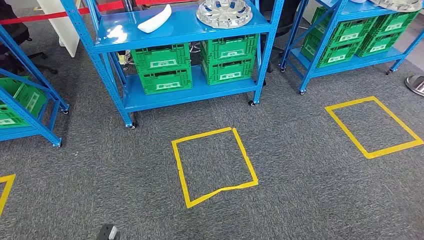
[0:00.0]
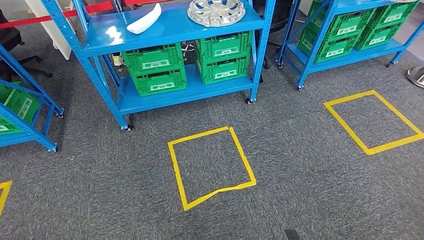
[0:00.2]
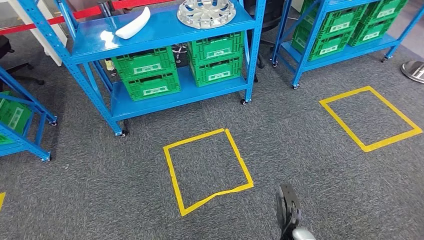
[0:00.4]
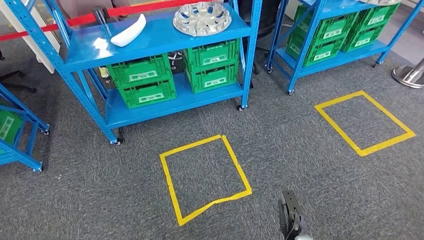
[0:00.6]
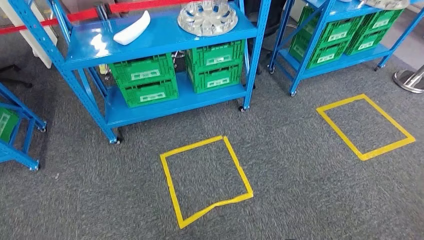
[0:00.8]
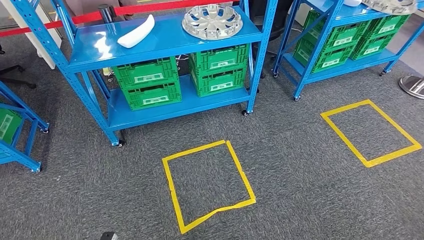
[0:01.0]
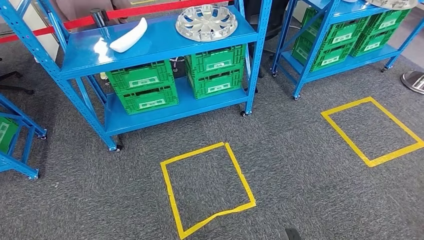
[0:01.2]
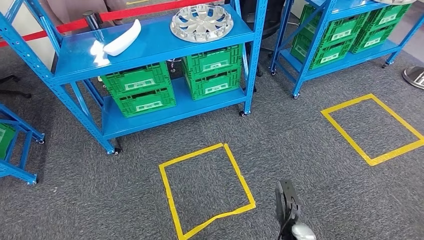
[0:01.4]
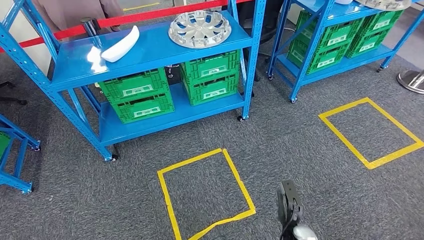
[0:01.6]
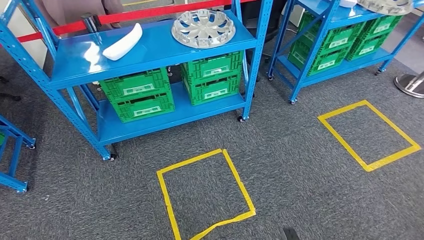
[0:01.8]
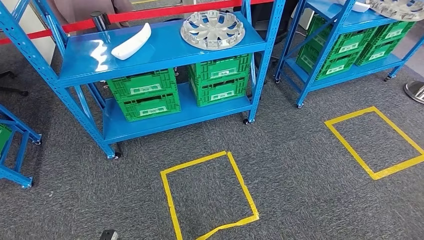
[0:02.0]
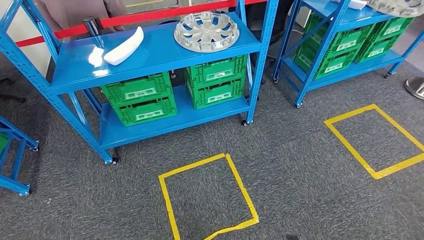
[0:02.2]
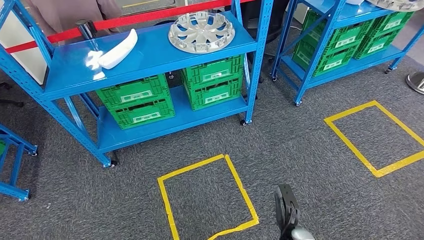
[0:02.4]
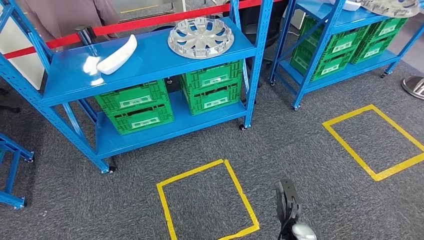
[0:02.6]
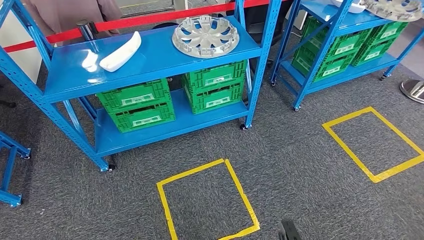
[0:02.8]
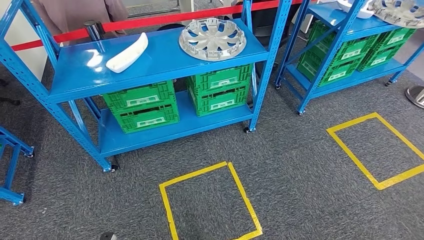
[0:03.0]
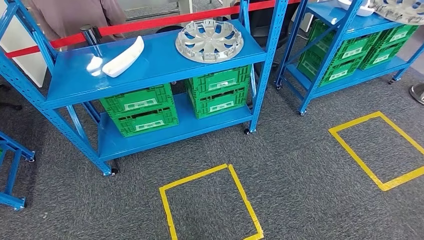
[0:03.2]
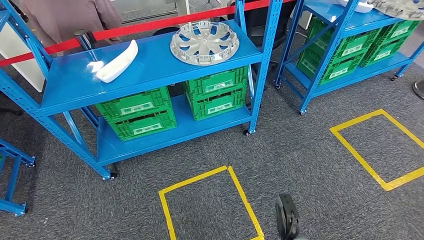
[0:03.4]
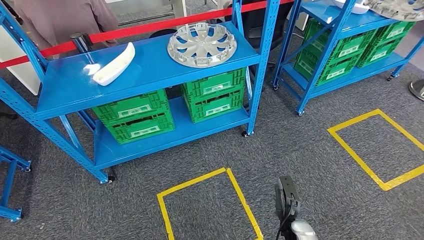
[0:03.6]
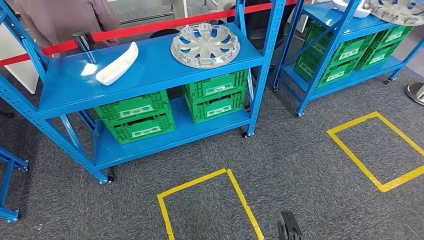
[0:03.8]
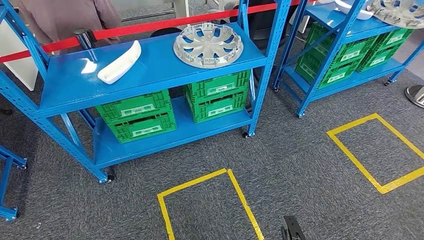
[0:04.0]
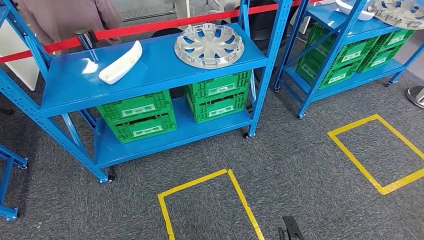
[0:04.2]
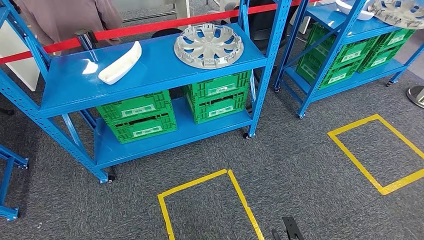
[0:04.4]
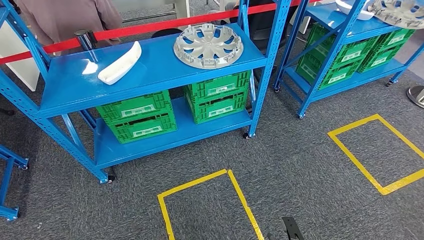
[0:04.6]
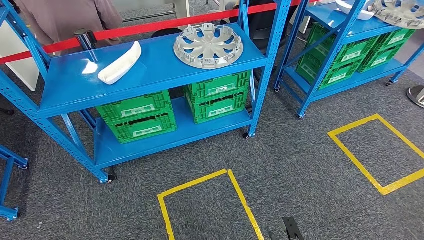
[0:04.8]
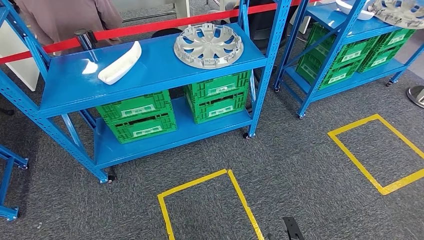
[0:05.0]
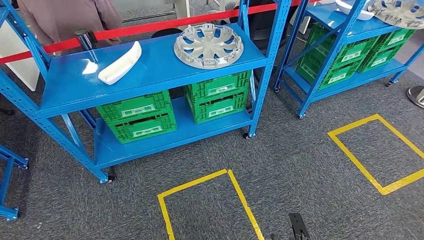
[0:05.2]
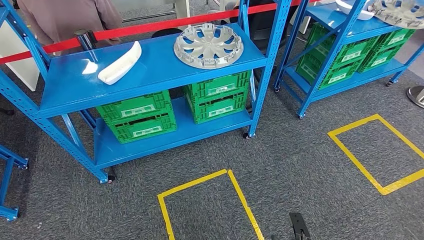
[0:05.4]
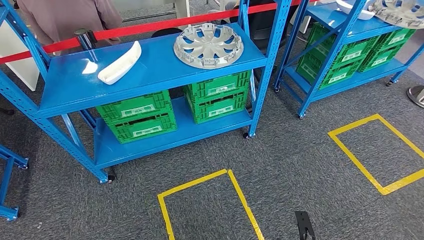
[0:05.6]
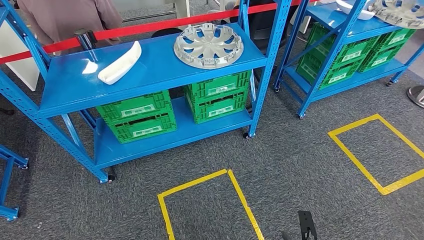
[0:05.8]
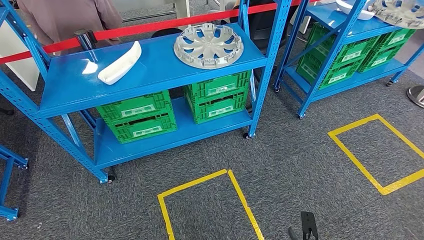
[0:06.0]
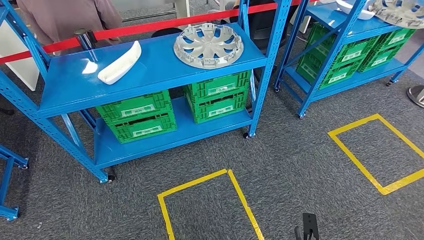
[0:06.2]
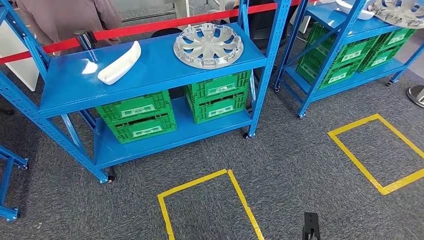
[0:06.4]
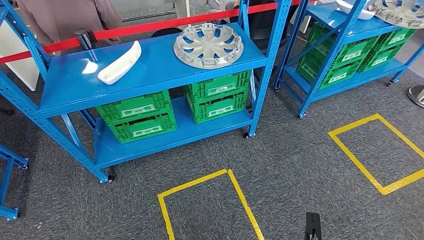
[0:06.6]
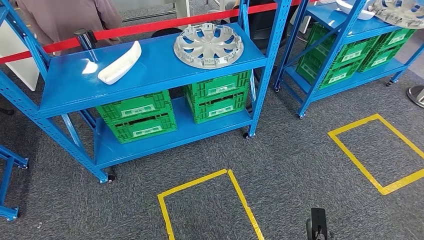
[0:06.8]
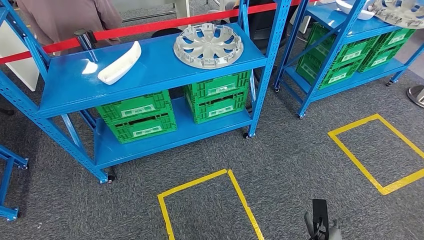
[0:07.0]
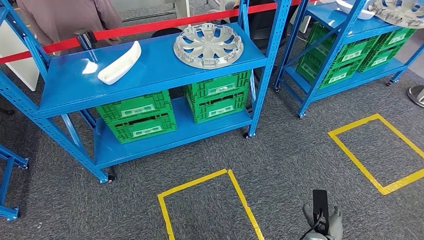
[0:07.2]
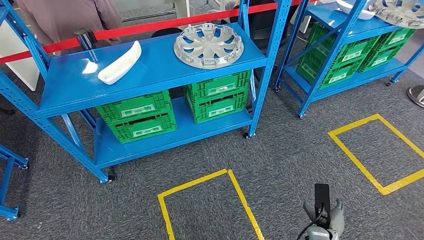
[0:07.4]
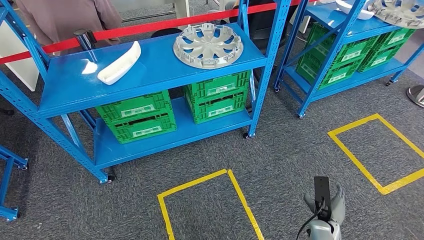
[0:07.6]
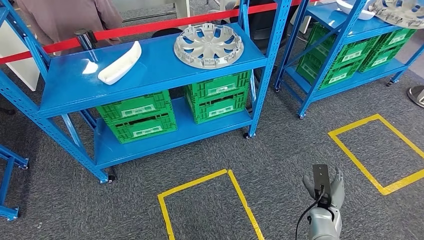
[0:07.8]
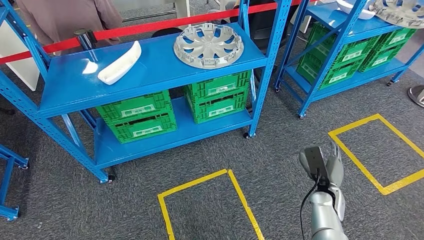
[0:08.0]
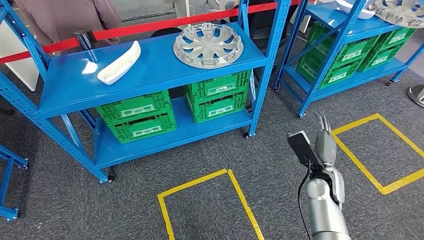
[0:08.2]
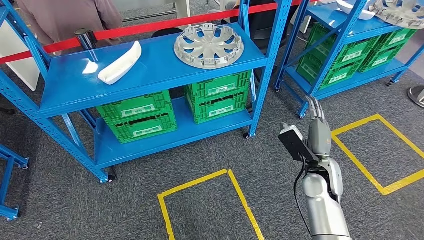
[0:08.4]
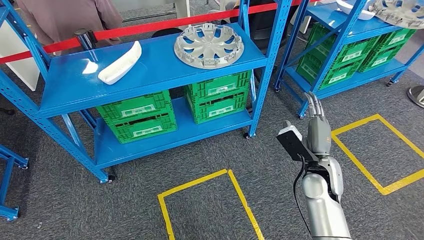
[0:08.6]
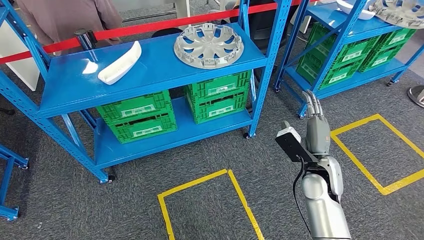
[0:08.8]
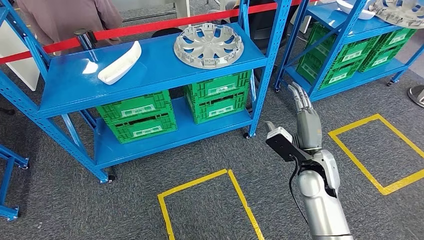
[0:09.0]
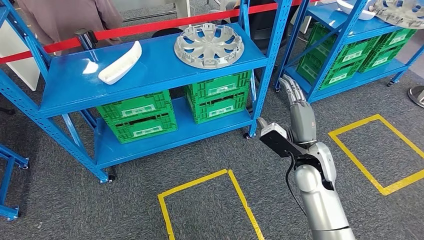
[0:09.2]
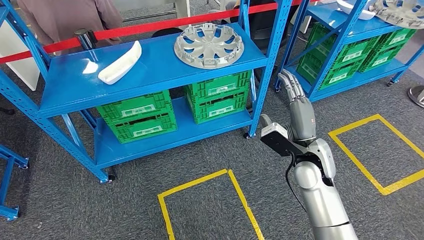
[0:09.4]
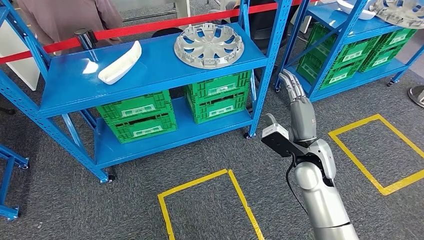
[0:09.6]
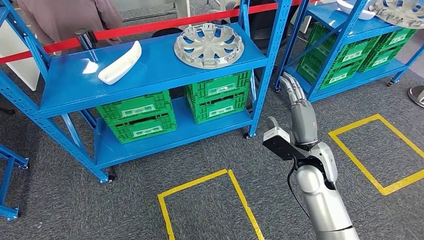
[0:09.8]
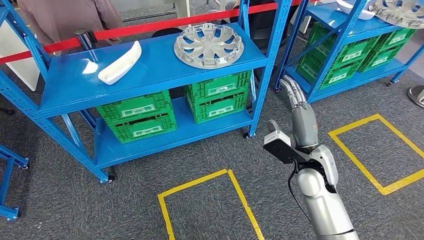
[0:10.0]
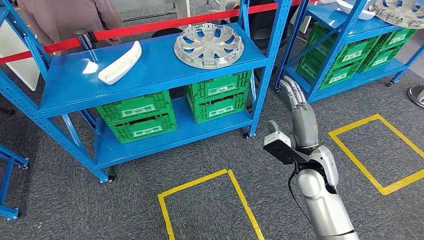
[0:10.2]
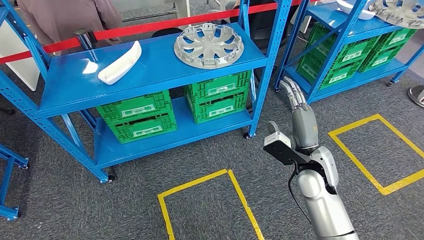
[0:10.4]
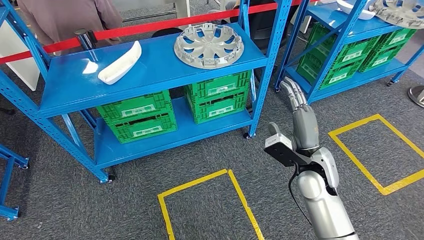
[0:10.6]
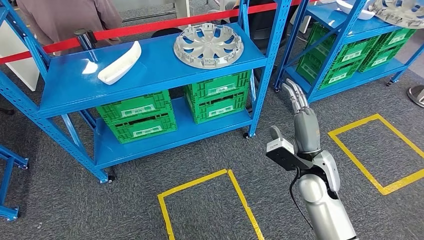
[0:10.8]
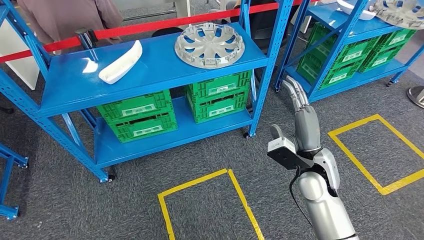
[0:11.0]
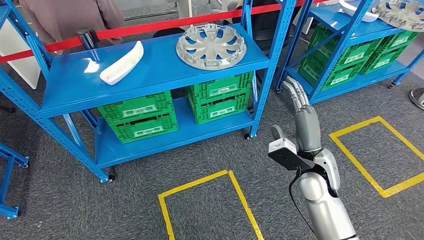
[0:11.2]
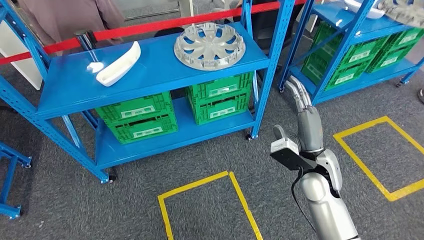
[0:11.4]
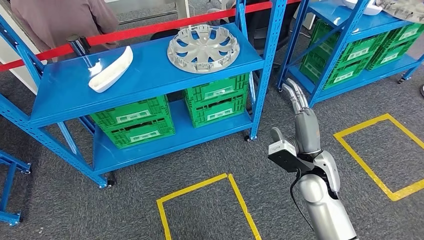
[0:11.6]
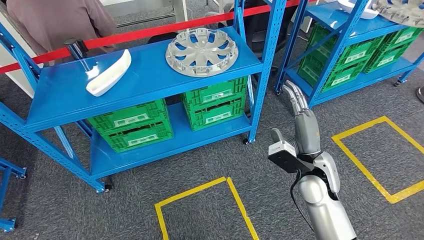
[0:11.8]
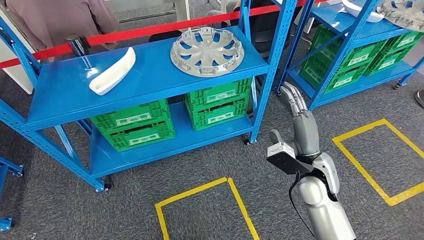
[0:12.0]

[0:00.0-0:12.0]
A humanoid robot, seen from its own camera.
0:06.0 to 0:07.6: The right hand is displaced forward and to the right by about 10 cm.
0:07.6 to 0:09.0: The right hand is displaced upward and forward by some 25 cm.
0:09.0 to 0:10.4: There are only small adjustments of the hands.

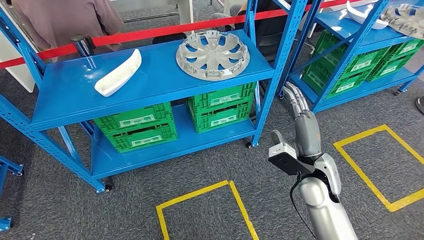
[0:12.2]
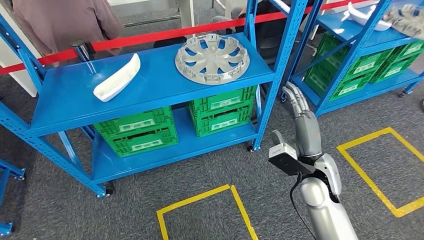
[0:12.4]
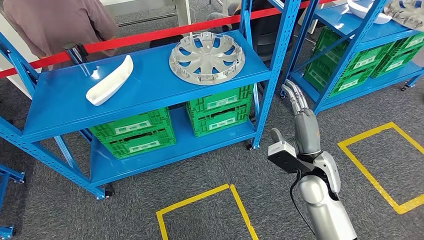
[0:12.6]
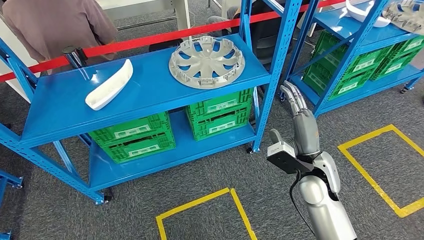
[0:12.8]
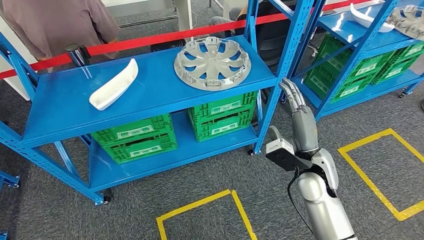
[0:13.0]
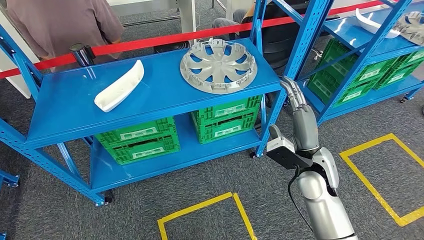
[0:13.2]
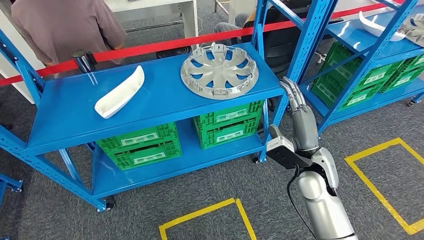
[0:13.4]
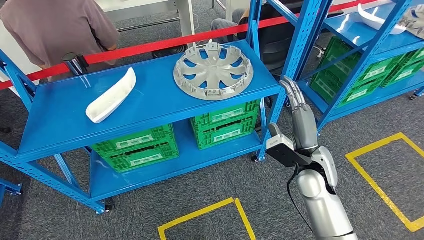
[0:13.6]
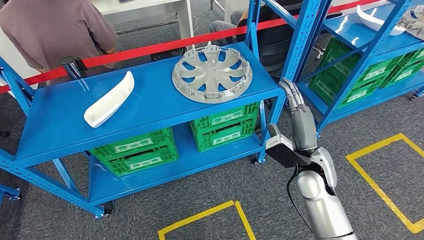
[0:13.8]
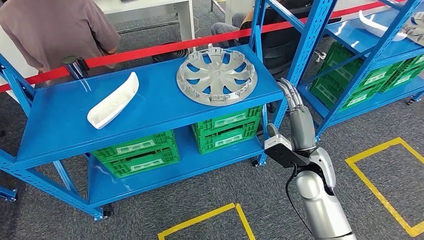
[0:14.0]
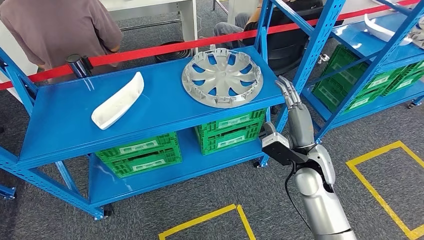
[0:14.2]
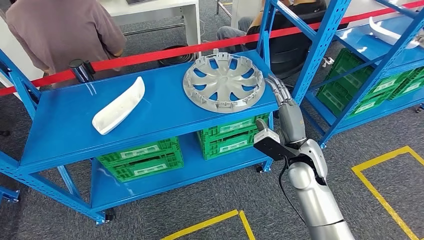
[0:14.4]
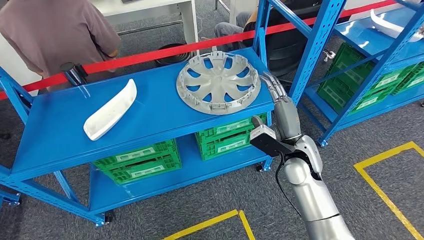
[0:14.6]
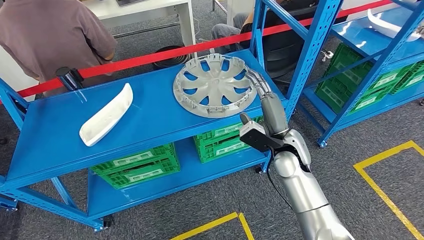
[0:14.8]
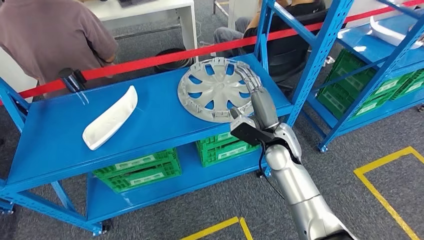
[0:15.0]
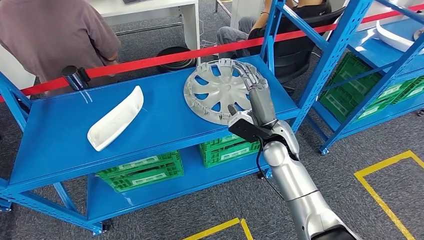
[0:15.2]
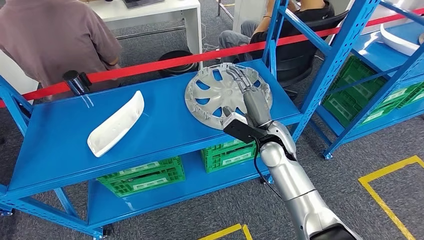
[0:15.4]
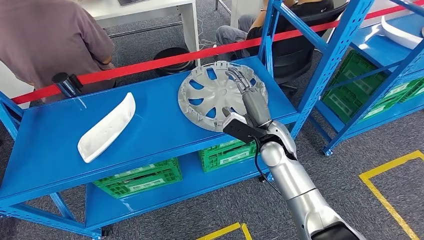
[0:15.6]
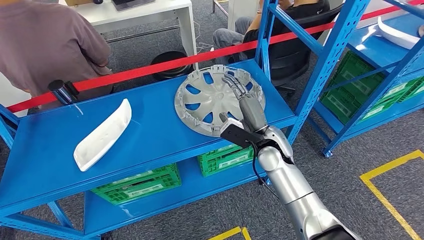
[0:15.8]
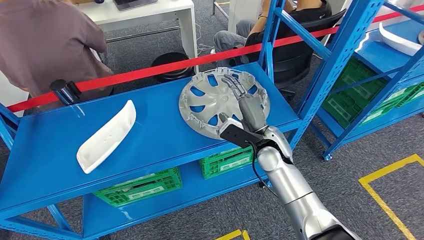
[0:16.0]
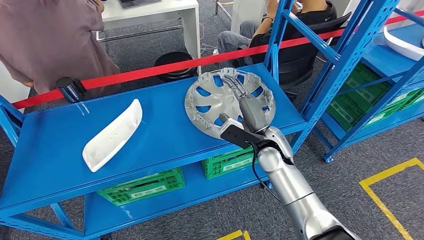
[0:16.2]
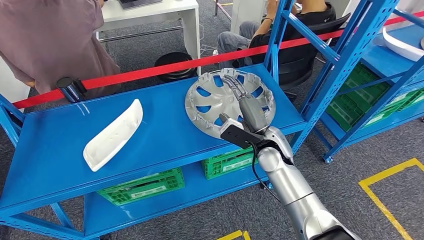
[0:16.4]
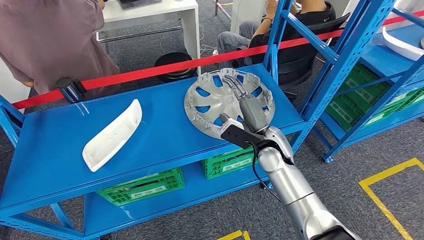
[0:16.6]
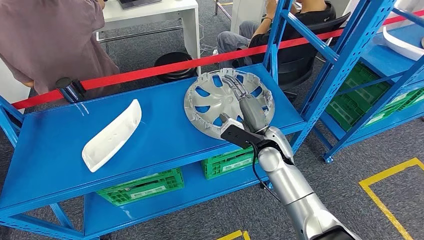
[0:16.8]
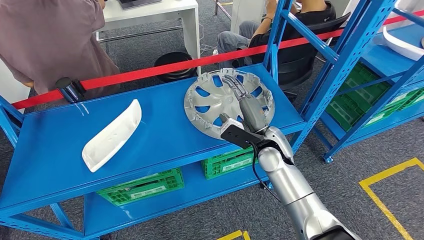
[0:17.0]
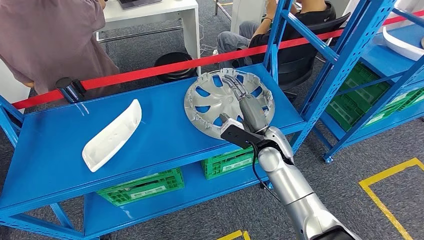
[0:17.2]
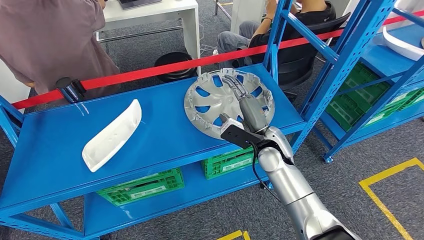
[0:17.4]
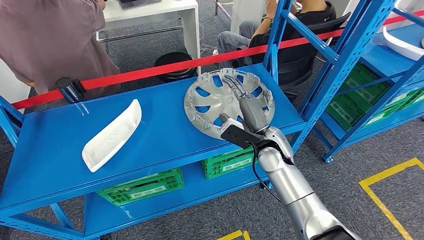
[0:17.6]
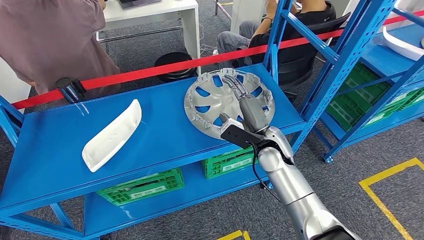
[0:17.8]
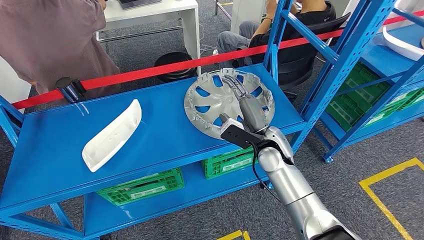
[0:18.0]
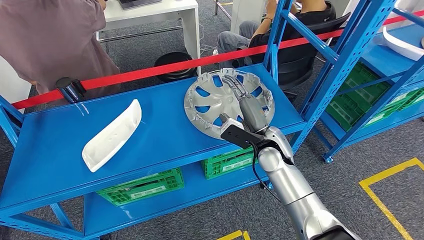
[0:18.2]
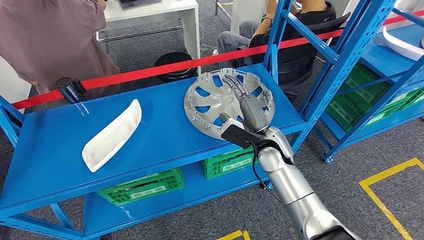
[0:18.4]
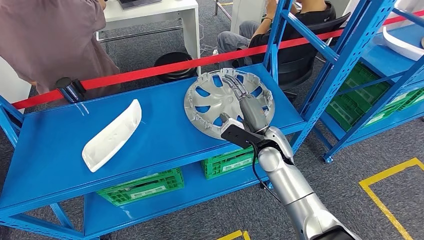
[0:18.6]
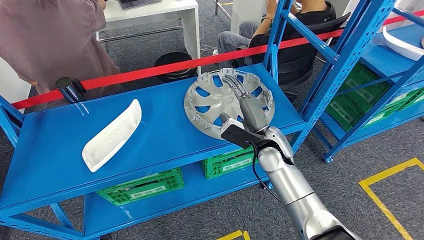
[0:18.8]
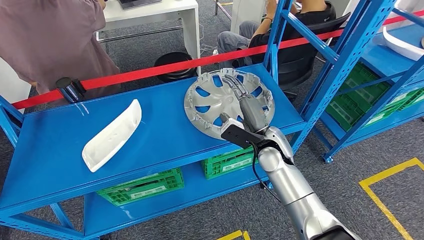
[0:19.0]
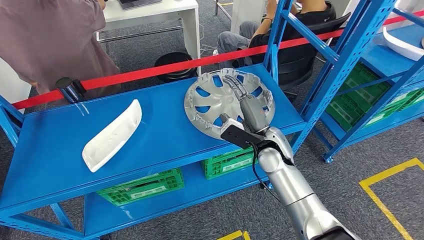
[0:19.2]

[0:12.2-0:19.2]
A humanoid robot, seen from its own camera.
0:16.4 to 0:19.2: The two hands keep their place.
